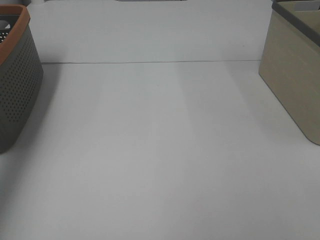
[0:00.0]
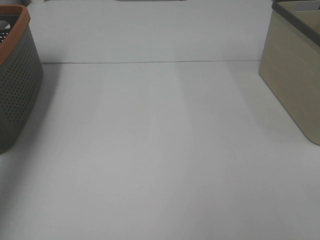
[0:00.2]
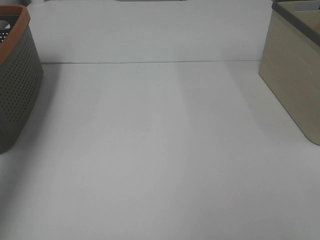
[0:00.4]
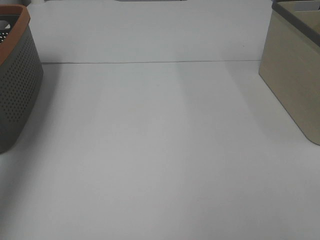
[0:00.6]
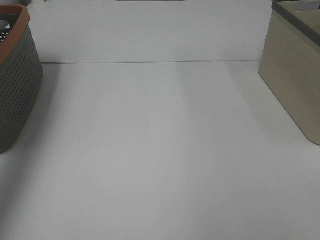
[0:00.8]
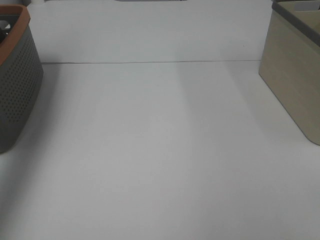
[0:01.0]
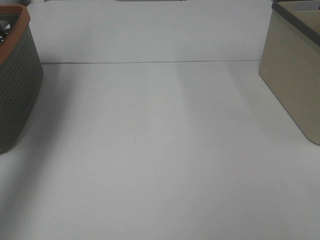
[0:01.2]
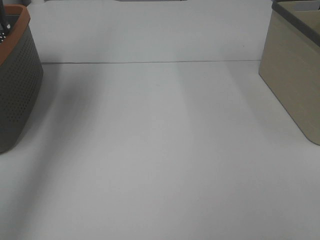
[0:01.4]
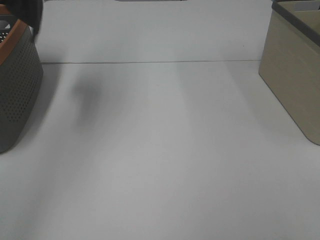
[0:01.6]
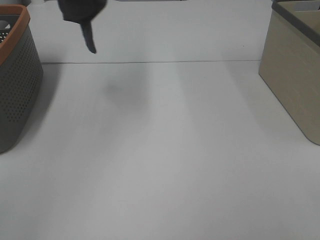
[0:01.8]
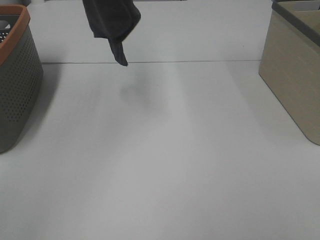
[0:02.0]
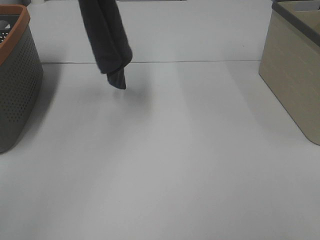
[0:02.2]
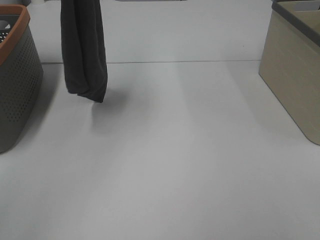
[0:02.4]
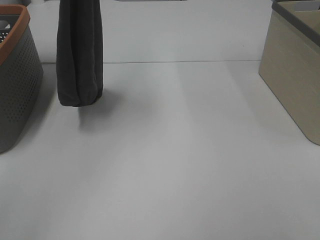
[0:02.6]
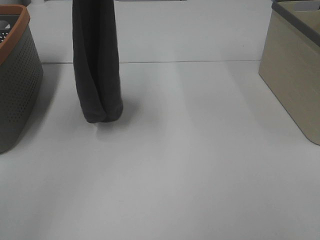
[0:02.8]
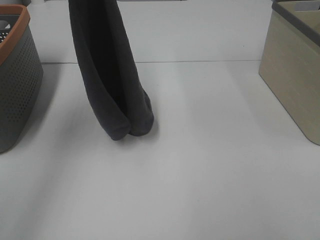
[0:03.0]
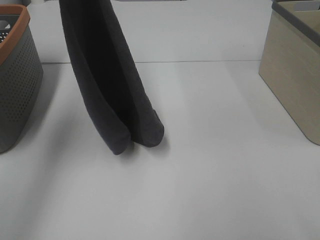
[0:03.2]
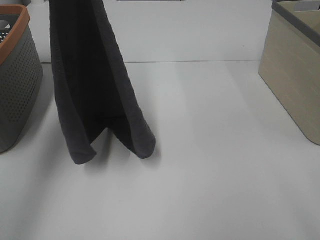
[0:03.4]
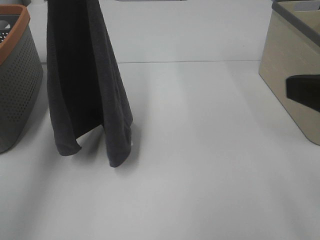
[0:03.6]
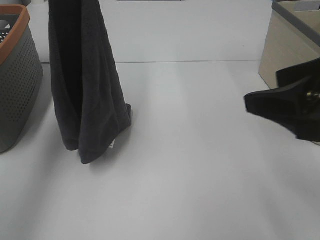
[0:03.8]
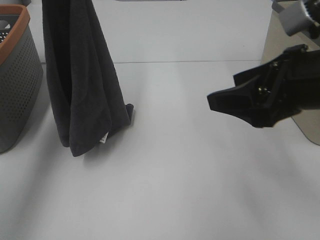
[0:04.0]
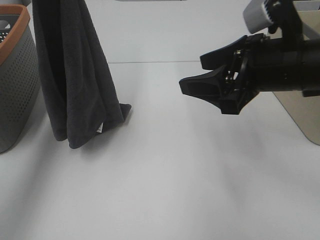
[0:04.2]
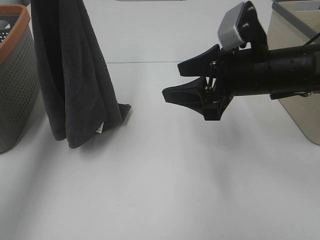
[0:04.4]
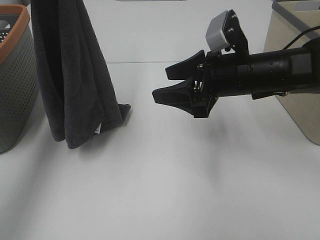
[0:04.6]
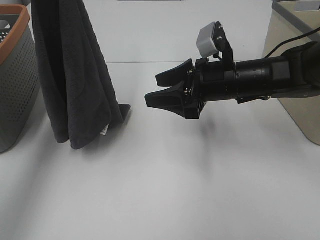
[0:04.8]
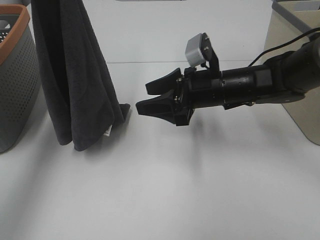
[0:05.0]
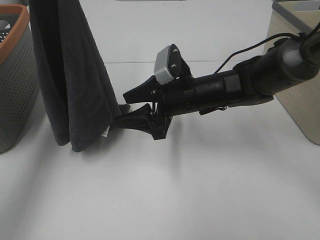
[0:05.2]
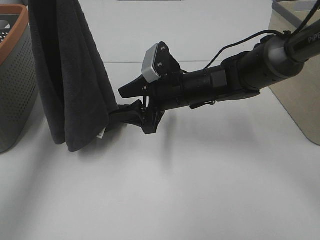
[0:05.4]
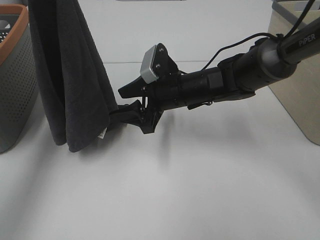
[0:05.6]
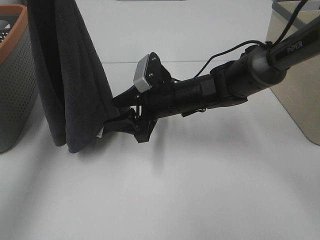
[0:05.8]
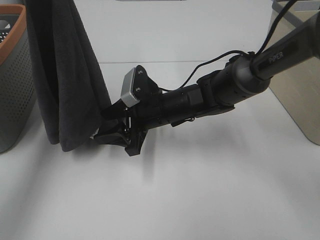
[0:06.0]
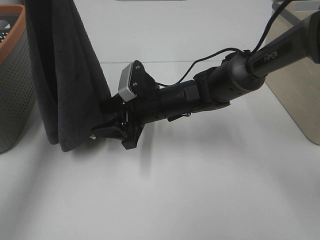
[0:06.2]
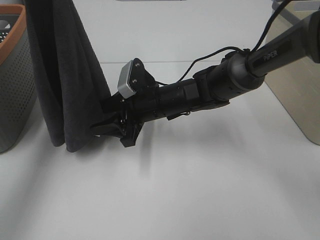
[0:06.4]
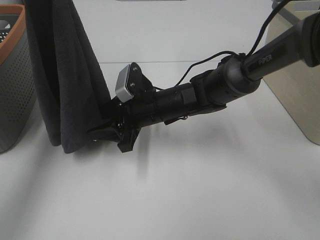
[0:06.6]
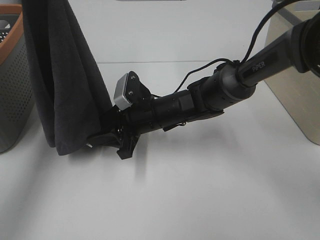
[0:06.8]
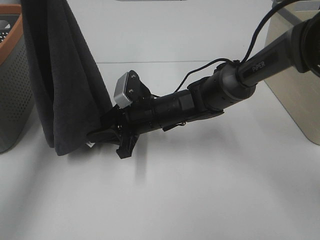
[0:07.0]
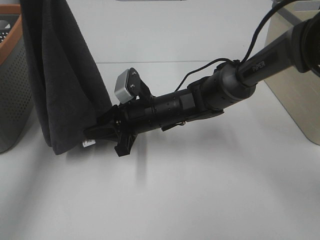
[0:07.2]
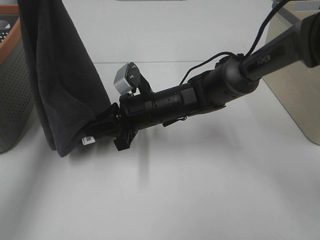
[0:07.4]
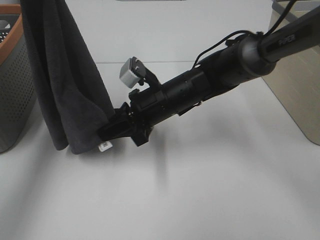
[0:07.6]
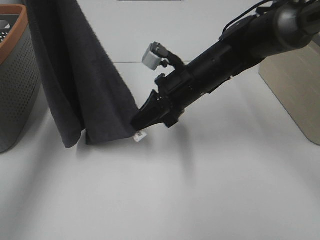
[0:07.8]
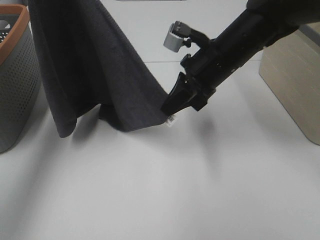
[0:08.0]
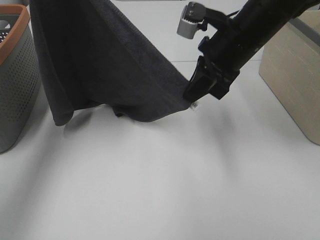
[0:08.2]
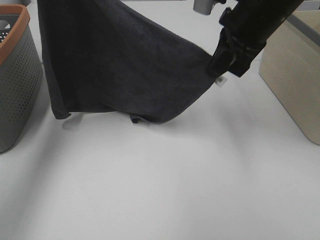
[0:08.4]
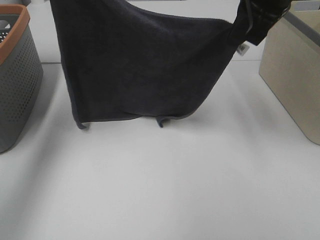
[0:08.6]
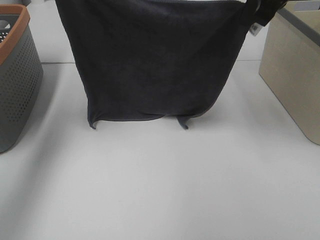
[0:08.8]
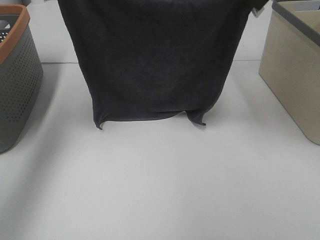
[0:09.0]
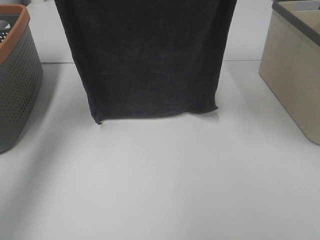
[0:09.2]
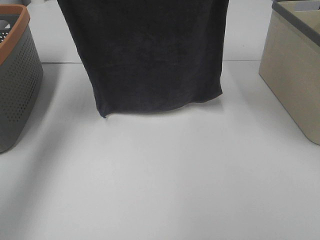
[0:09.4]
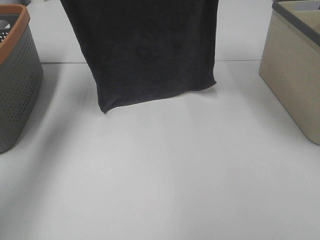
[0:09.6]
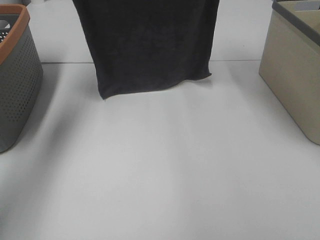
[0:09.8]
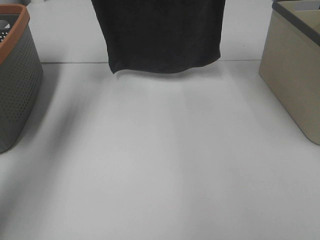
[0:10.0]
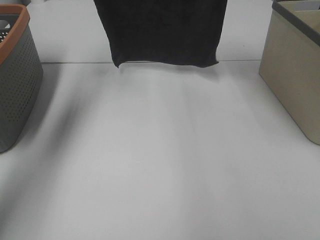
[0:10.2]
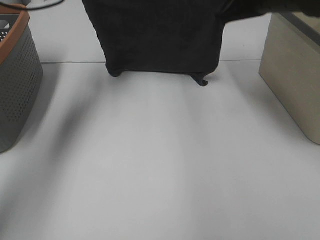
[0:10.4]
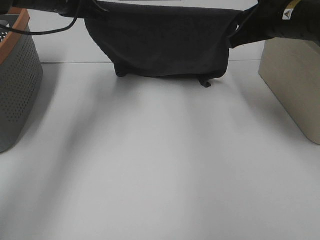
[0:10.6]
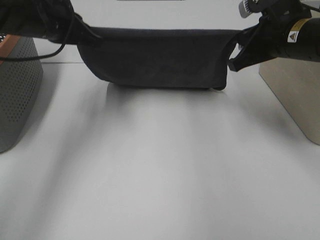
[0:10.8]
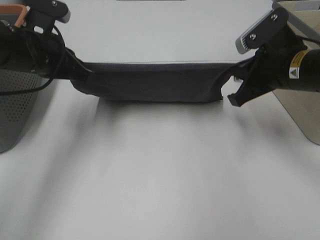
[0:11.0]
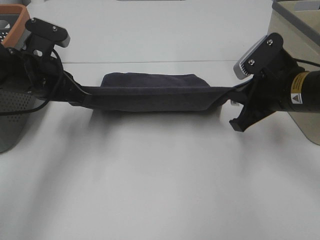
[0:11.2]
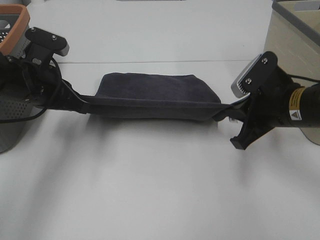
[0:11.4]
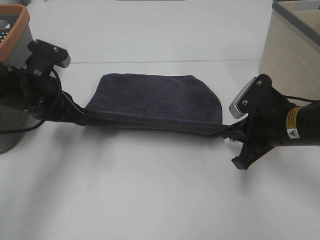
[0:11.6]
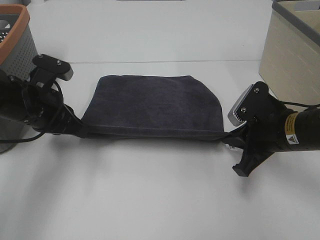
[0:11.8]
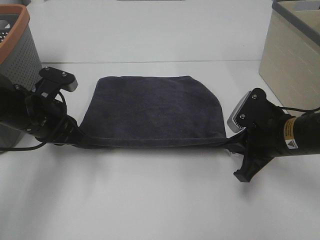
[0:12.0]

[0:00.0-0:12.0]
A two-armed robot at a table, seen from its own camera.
Task of the whole recording: Remove the towel and place it.
Step, 0:01.4 to 0:05.4: Right hand: grab a corner of the grey towel and straighten it.
Step, 0:05.6 to 0:08.0: Right hand: spread the grey towel flat on the table.
0:00.0 to 0:01.6: The left gripper moves upward and to the right, about 25 cm.
0:01.6 to 0:03.0: The left gripper goes roughly 15 cm downward.
0:03.0 to 0:04.4: The right gripper is displaced forward and to the left by some 30 cm.
0:04.4 to 0:06.0: The right gripper is displaced to the left, downward and forward by approximately 20 cm.
0:06.0 to 0:07.6: The right gripper closes up.
0:07.6 to 0:09.0: The right gripper goes about 30 cm upward and to the right, while the left gripper moves downward, approximately 5 cm.
0:09.0 to 0:10.4: The right gripper is displaced downward and forward by some 10 cm; the left gripper goes roughly 15 cm forward and downward.
0:10.4 to 0:12.0: The left gripper goes some 25 cm backward and downward. The right gripper goes approximately 20 cm downward and backward.

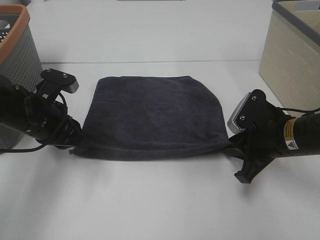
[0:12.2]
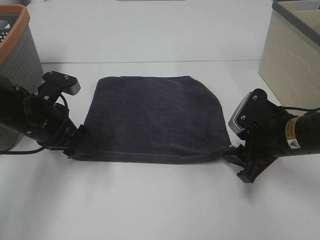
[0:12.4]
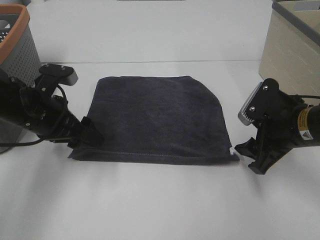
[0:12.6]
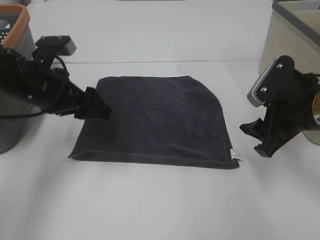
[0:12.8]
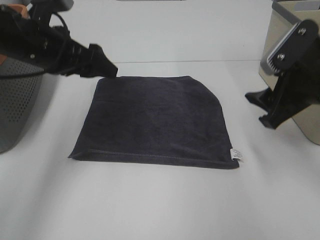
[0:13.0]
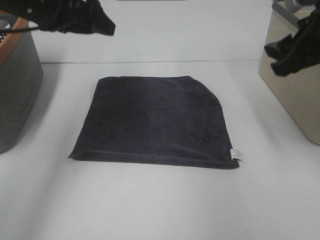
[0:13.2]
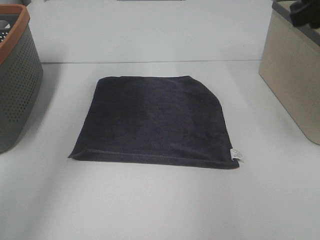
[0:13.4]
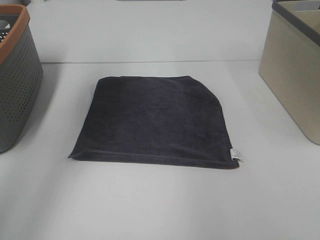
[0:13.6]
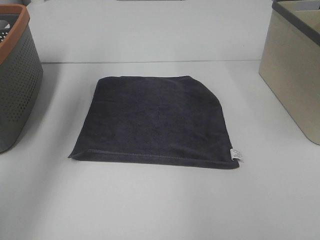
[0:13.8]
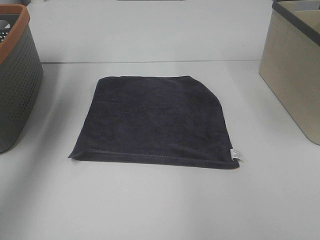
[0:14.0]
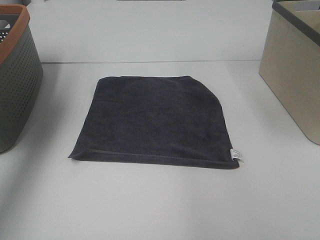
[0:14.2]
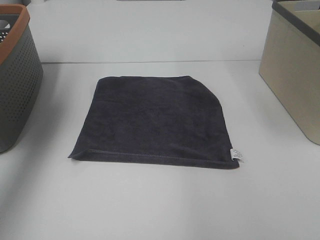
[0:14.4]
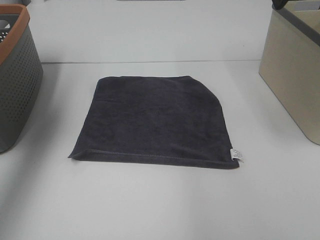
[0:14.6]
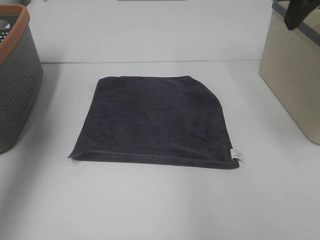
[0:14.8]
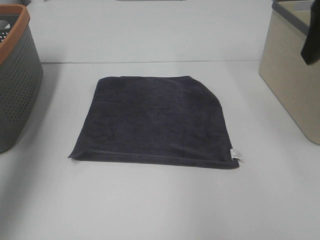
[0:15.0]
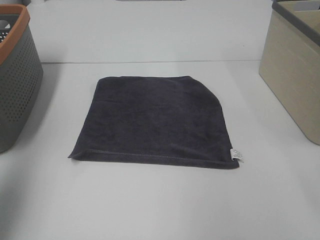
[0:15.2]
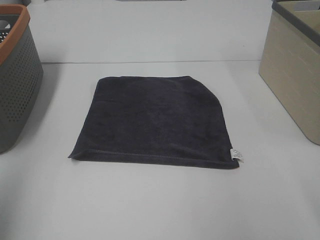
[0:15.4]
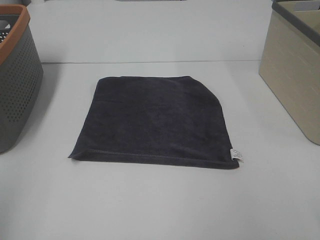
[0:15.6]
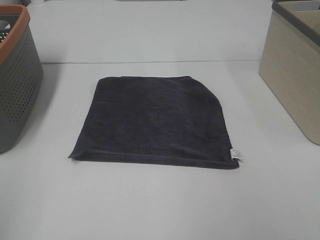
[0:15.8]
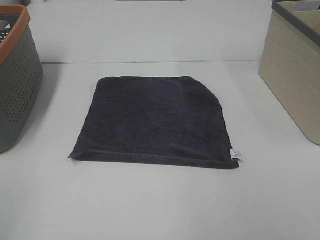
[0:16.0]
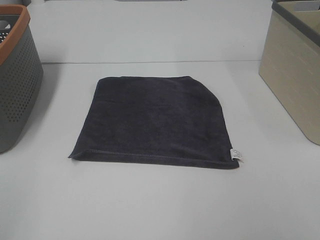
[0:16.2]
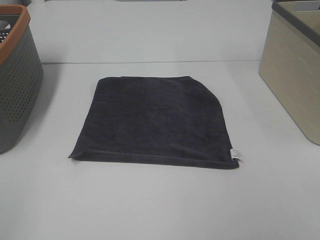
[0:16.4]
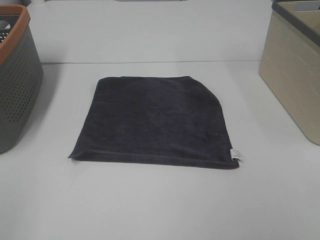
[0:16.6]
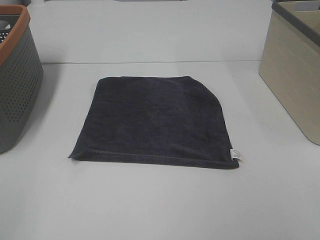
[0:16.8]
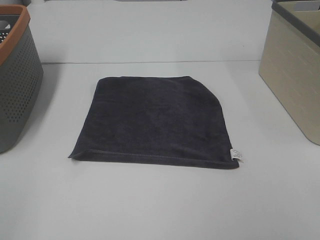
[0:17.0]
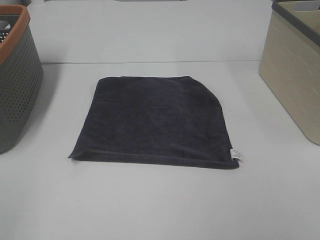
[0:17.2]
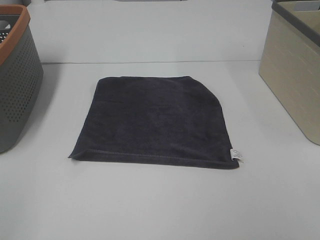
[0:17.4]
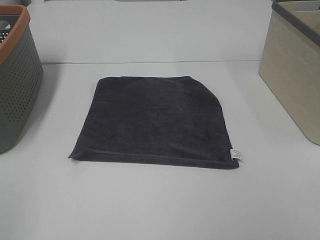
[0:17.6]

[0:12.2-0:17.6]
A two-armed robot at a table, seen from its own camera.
Task of the whole recording: Remove the towel and place it.
0:12.2 to 0:13.6: The grippers both shift upward by some 25 cm. The right gripper opens, while the left gripper opens.
0:13.6 to 0:15.0: The left gripper moves backward and to the left, approximately 20 cm, while the right gripper goes roughly 5 cm backward.
0:15.0 to 0:16.2: The grippers both shift backward by approximately 25 cm.

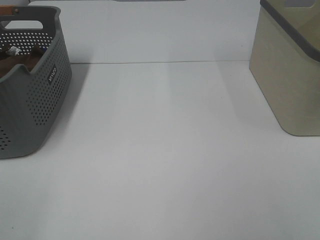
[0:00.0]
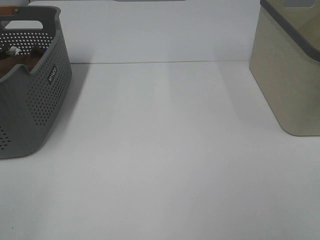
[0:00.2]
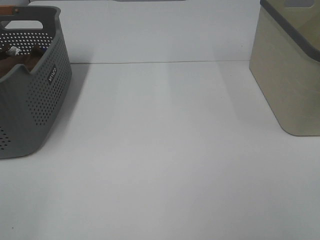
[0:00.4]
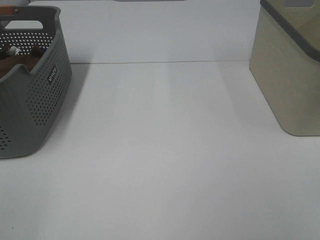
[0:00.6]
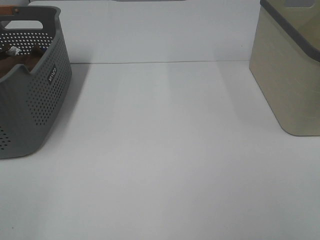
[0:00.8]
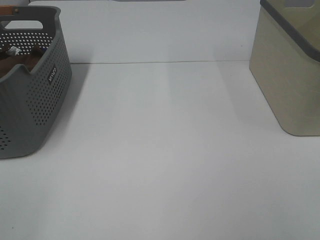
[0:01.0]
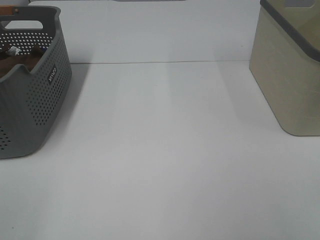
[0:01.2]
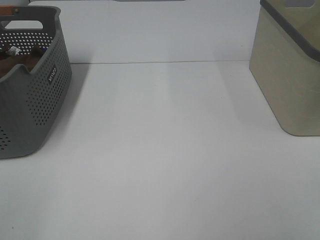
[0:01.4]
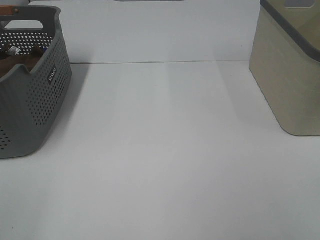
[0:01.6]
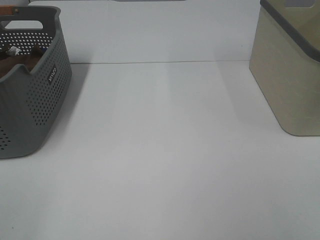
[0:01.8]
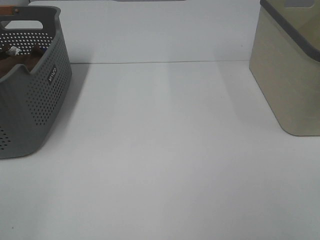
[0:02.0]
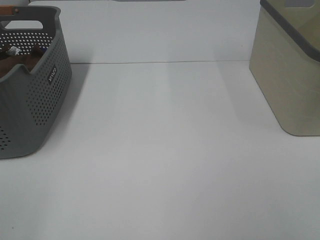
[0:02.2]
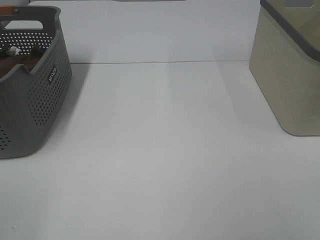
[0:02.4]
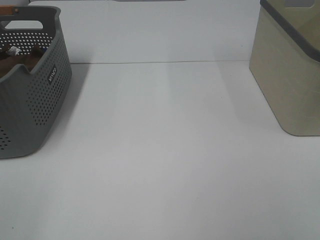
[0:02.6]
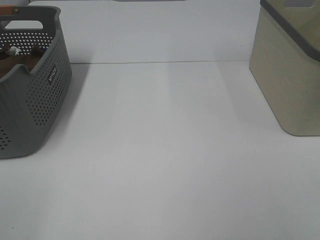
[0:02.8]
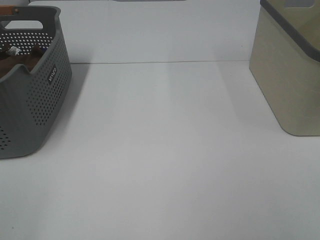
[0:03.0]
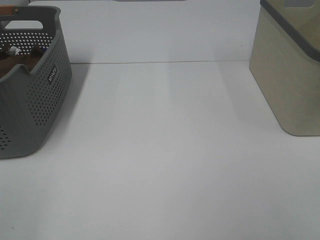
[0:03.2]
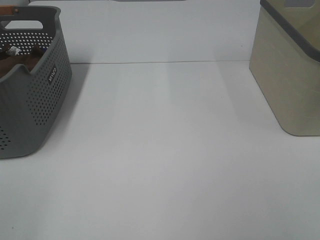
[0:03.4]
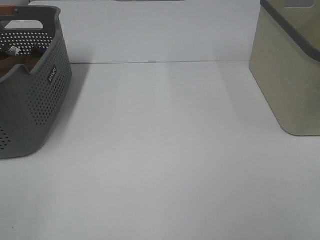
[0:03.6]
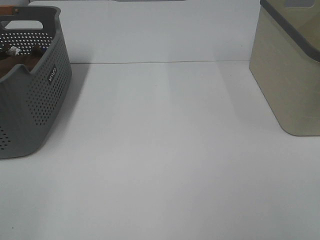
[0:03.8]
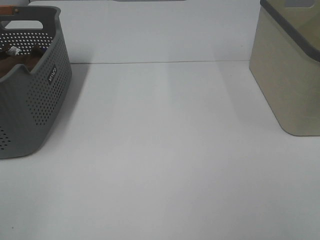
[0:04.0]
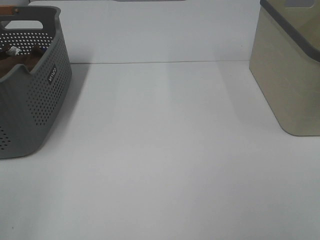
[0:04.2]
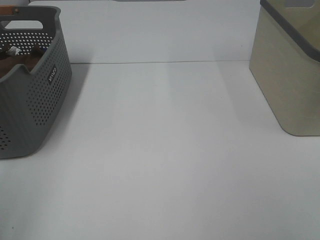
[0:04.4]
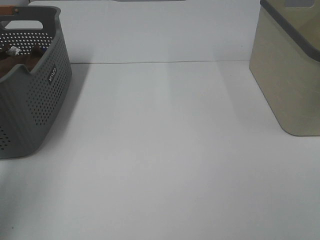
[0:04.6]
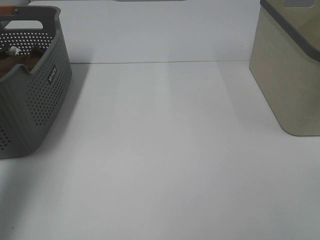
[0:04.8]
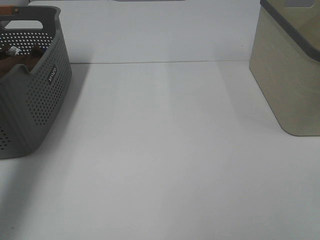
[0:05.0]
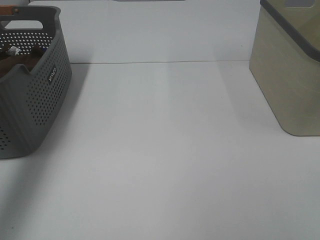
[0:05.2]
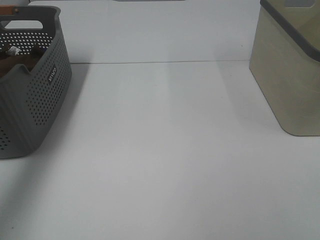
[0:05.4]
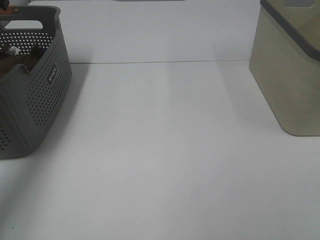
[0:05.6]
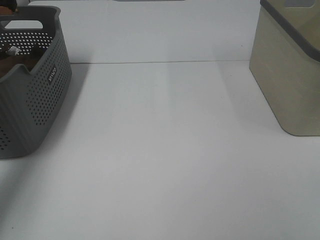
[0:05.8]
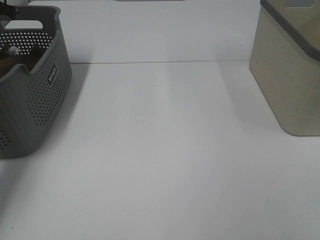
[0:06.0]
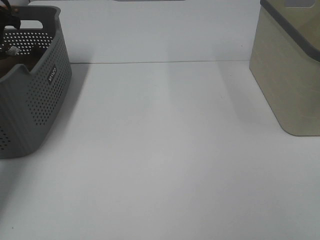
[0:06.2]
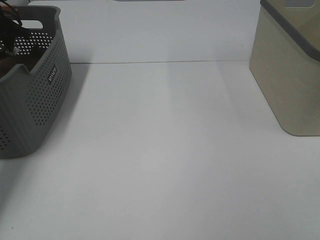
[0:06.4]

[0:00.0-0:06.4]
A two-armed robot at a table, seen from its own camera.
Task of the whole recording: Remove the towel and place it.
0:00.0 to 0:03.2: The two grippers keep their place.
0:03.2 to 0:04.8: The left gripper goes approximately 20 cm forward.
0:04.8 to 0:06.4: The left gripper goes roughly 35 cm forward.
